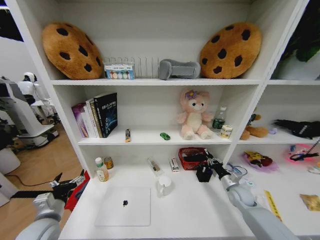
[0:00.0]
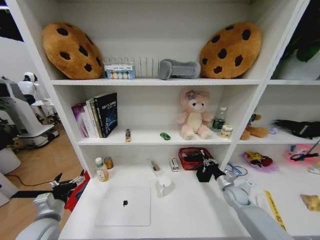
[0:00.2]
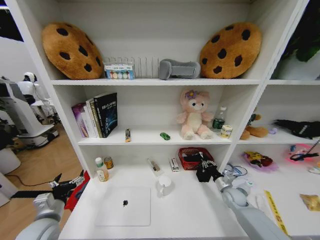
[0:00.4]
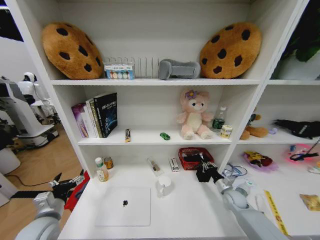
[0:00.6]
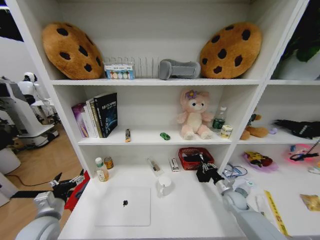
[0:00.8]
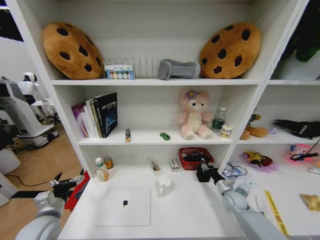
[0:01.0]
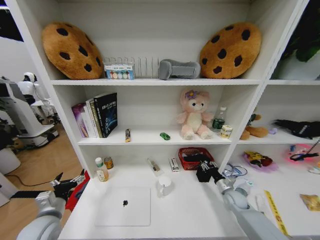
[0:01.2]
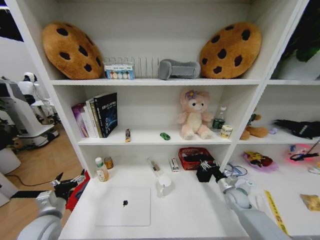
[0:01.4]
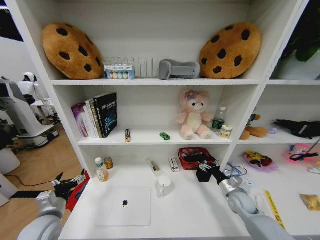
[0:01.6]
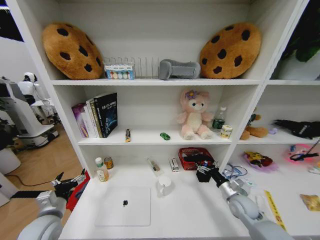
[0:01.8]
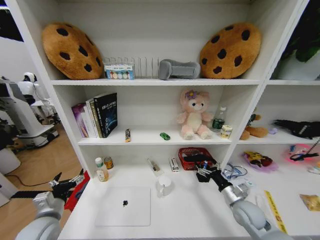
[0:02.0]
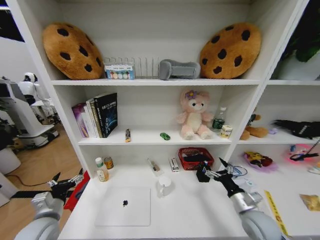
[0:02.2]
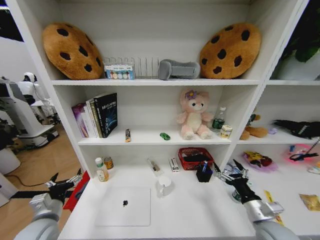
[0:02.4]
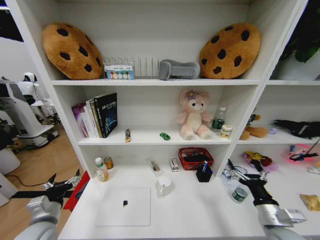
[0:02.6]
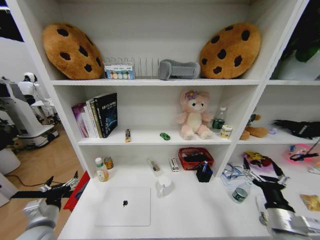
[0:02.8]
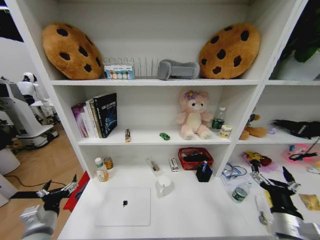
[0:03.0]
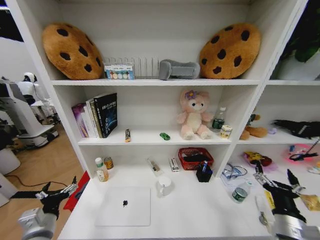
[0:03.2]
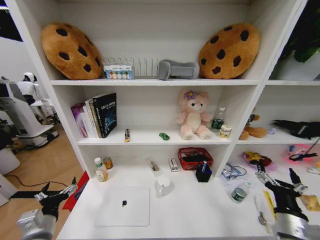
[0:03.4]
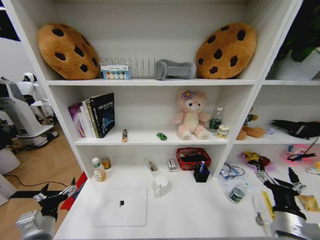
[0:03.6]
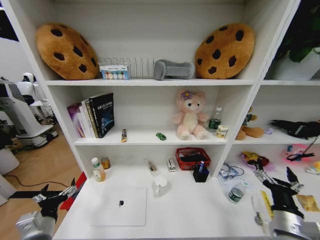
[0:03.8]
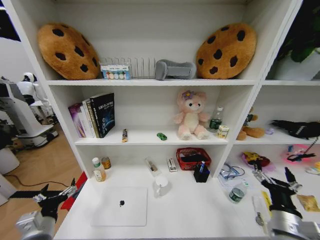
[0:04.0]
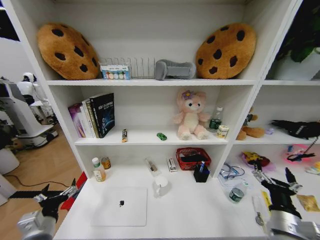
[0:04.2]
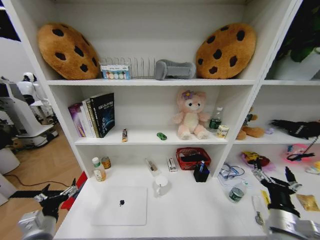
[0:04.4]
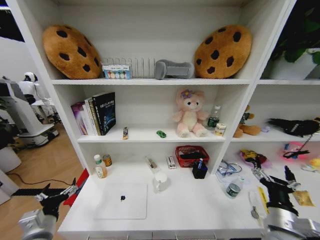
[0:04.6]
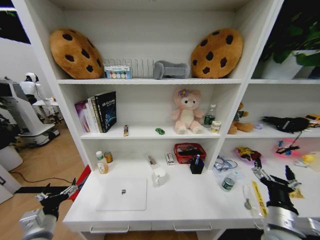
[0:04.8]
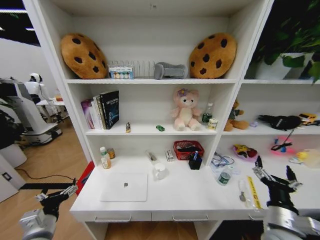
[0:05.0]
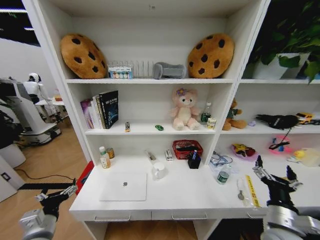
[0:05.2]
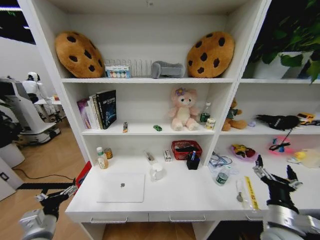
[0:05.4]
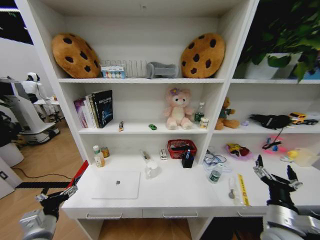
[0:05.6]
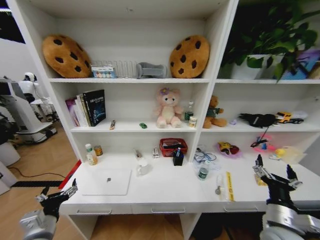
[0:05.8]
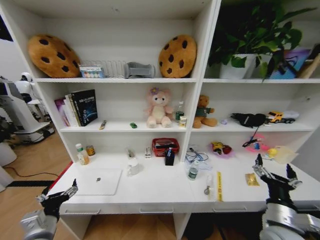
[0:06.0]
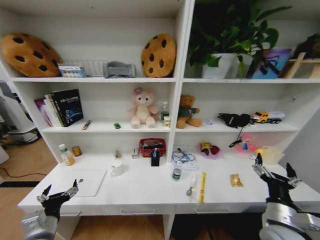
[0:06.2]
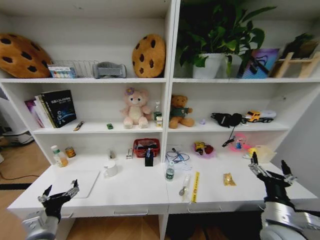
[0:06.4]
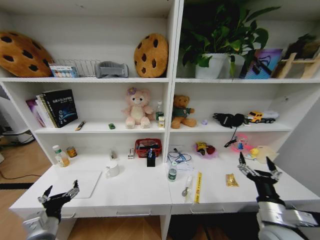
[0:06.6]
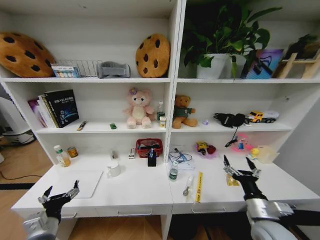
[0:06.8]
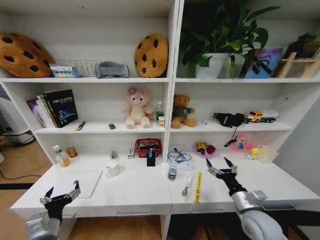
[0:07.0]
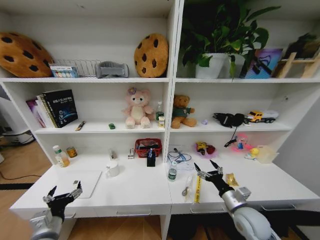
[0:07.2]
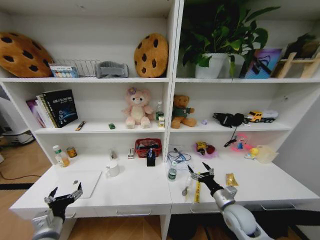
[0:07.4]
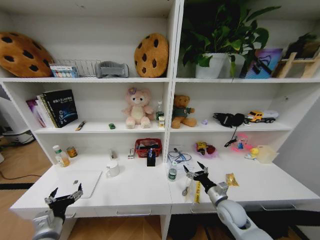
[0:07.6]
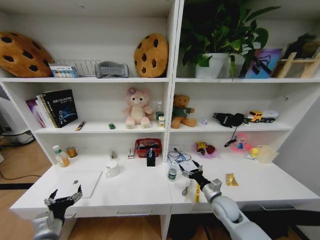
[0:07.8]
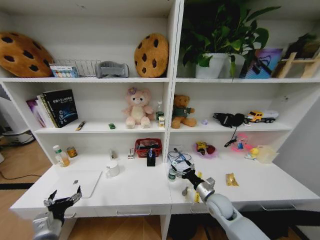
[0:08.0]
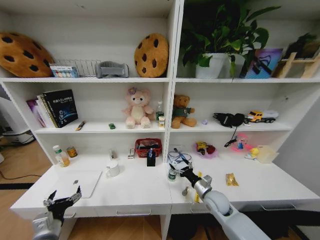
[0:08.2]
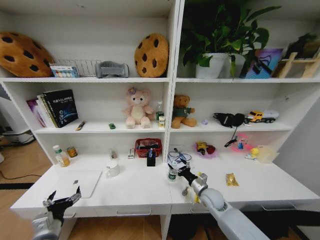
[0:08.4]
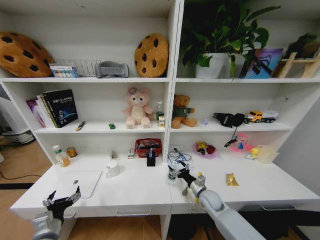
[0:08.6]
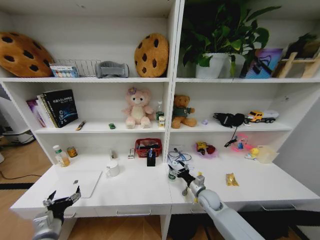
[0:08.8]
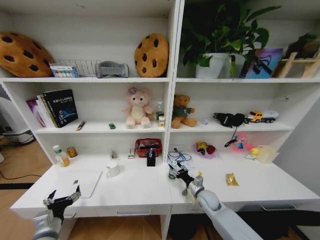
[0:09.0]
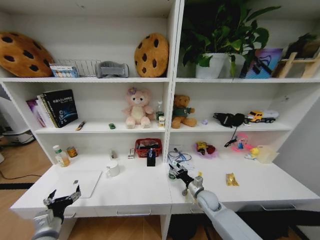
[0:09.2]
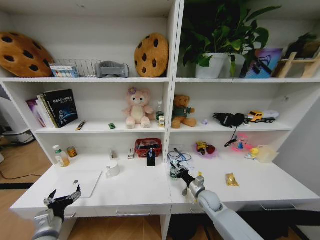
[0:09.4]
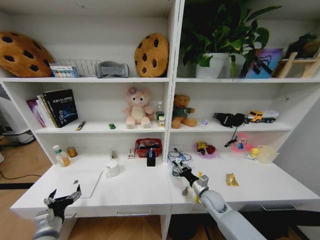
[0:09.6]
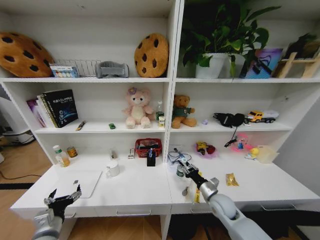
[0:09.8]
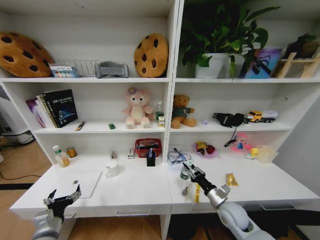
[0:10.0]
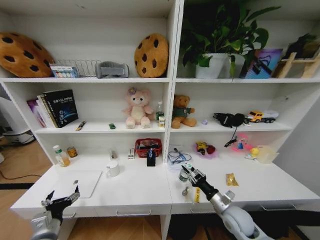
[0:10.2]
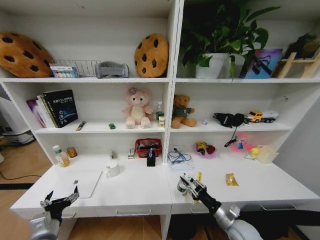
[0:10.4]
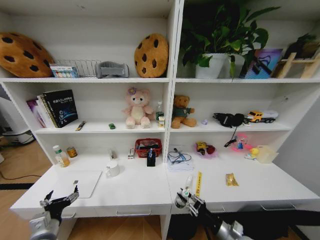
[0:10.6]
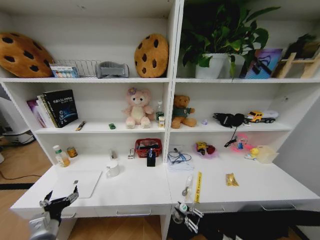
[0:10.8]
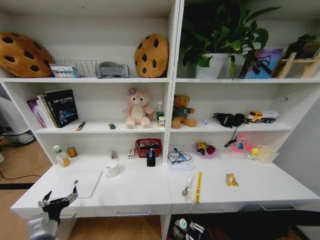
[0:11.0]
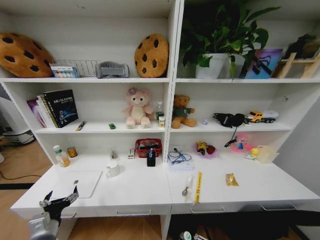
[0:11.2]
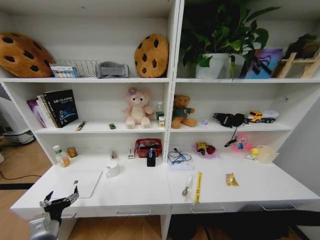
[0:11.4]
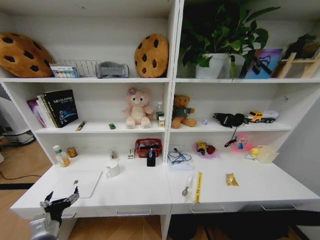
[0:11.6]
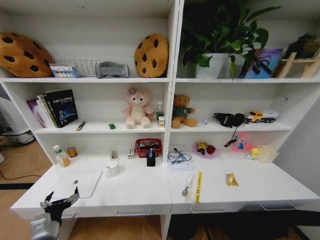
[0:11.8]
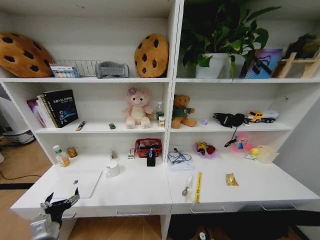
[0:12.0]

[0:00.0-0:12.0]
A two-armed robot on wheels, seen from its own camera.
Task of the whole recording: Organize the objects on the table.
0:00.0 to 0:01.6: The right gripper opens.
0:01.6 to 0:03.0: The left gripper travels backward by some 5 cm, while the right gripper travels backward and upward by about 25 cm.
0:03.0 to 0:04.4: There are only small adjustments of the grippers.
0:06.0 to 0:07.6: The right gripper moves forward, downward and to the left, some 15 cm.
0:07.6 to 0:09.0: The right gripper moves forward and downward, about 10 cm.
0:09.0 to 0:10.4: The right gripper goes roughly 15 cm backward and to the right, and closes up.
0:10.4 to 0:12.0: The right gripper goes roughly 30 cm downward, backward and to the right.

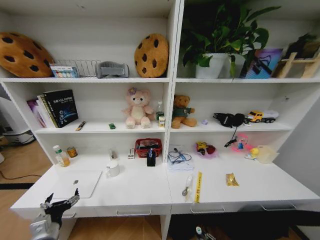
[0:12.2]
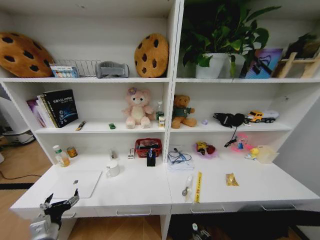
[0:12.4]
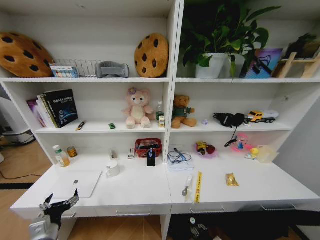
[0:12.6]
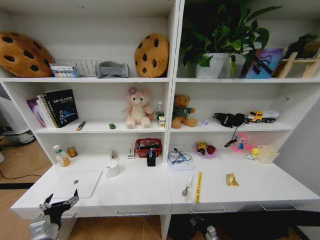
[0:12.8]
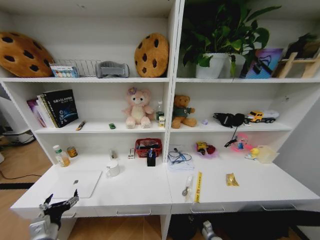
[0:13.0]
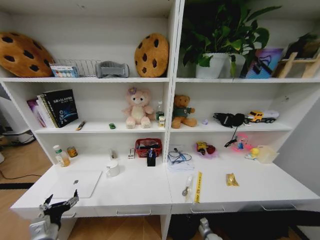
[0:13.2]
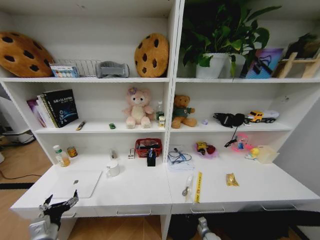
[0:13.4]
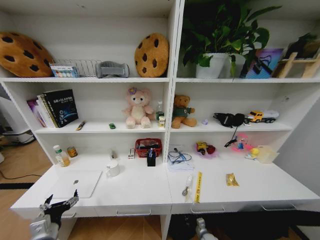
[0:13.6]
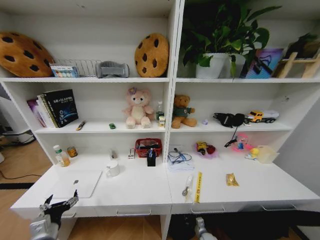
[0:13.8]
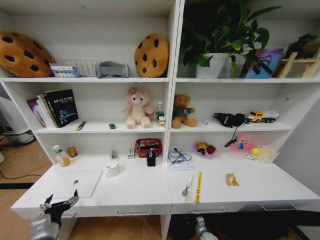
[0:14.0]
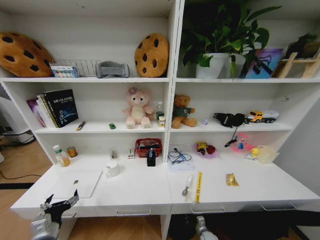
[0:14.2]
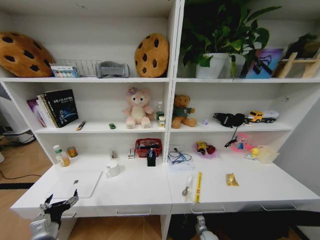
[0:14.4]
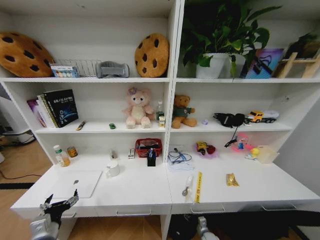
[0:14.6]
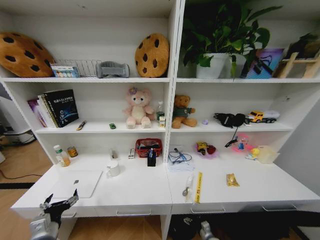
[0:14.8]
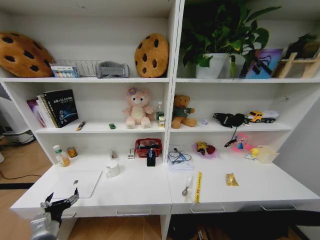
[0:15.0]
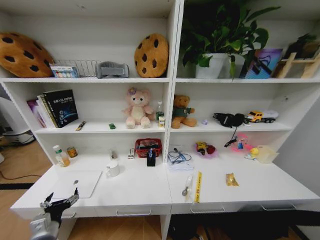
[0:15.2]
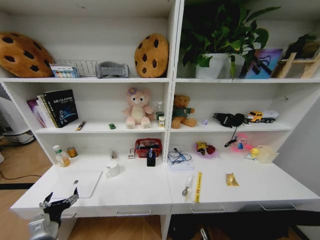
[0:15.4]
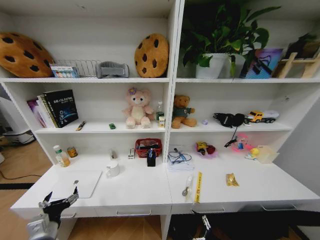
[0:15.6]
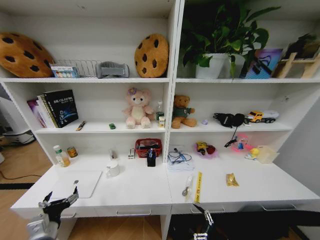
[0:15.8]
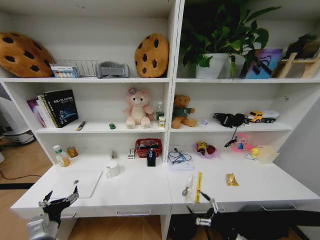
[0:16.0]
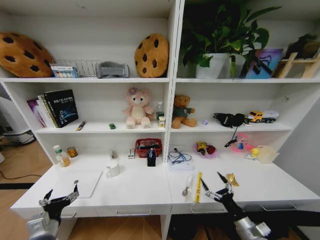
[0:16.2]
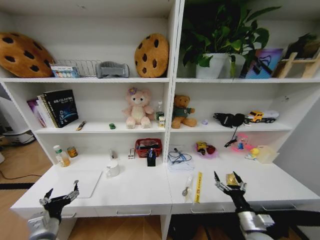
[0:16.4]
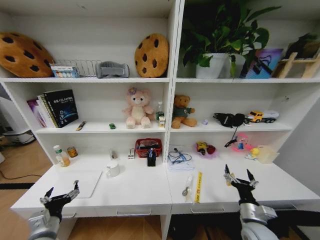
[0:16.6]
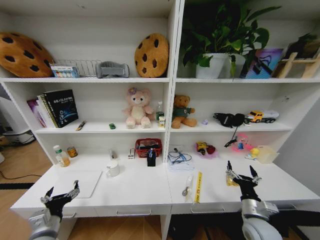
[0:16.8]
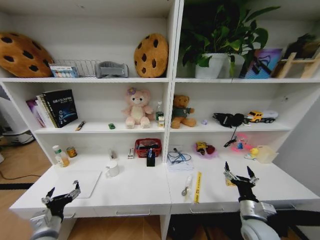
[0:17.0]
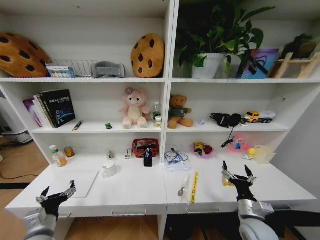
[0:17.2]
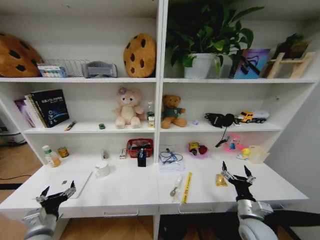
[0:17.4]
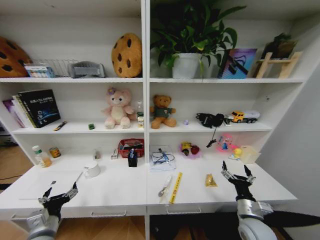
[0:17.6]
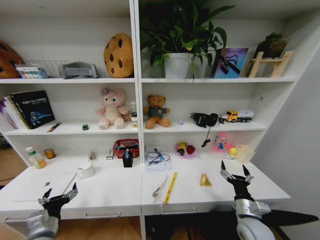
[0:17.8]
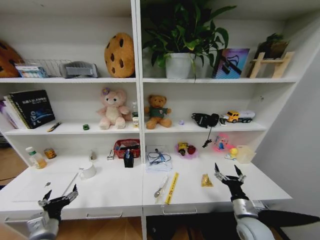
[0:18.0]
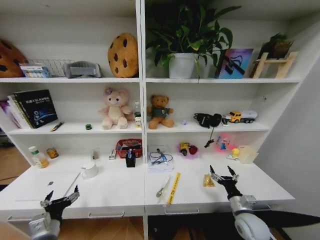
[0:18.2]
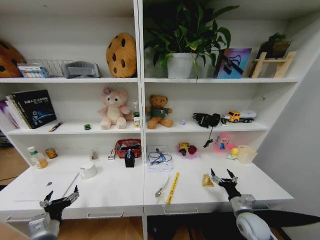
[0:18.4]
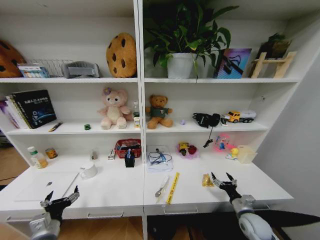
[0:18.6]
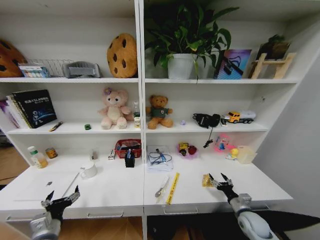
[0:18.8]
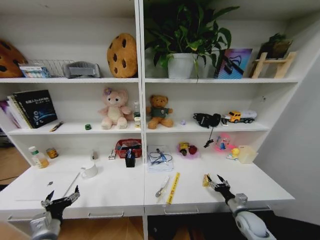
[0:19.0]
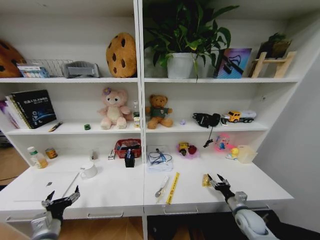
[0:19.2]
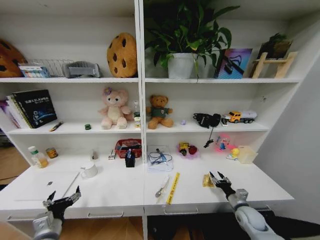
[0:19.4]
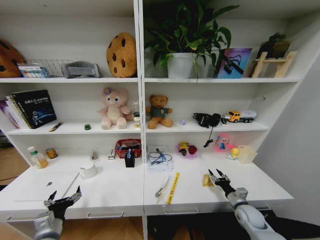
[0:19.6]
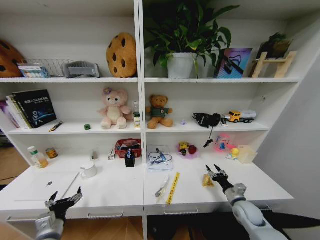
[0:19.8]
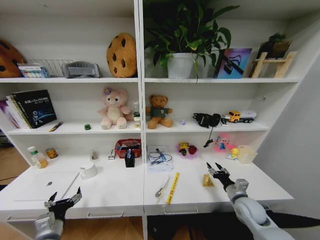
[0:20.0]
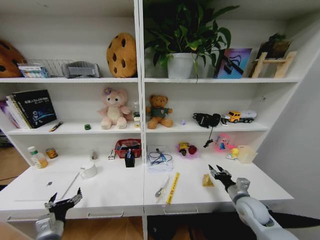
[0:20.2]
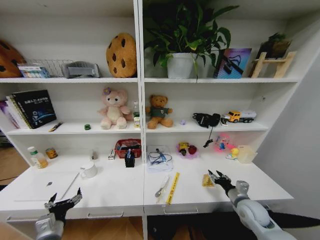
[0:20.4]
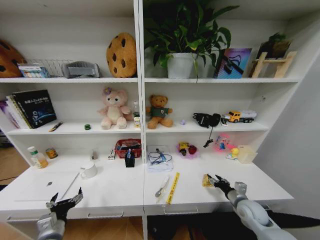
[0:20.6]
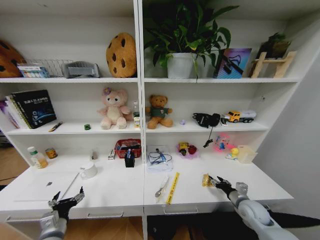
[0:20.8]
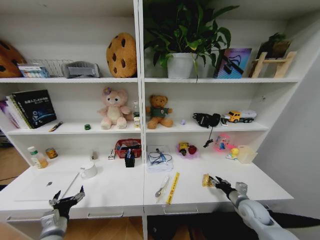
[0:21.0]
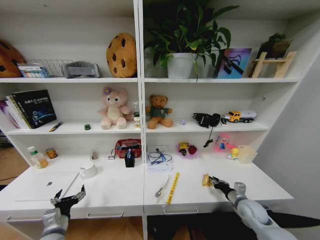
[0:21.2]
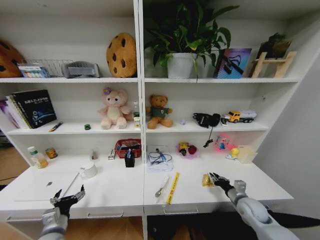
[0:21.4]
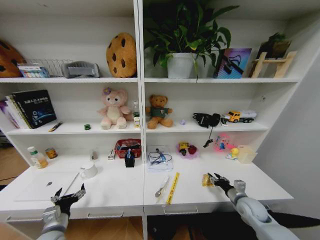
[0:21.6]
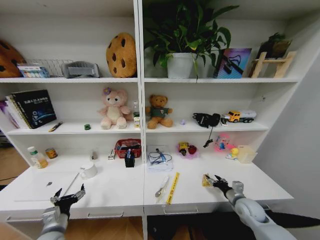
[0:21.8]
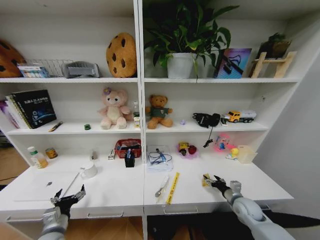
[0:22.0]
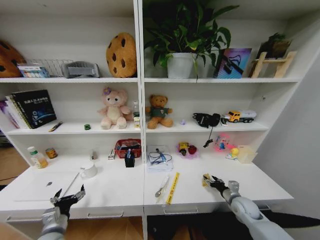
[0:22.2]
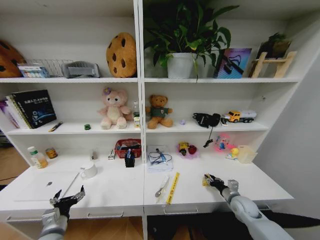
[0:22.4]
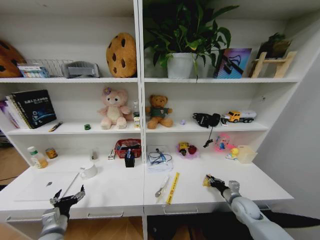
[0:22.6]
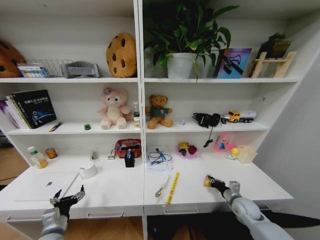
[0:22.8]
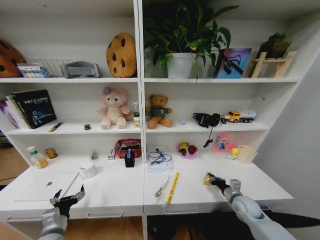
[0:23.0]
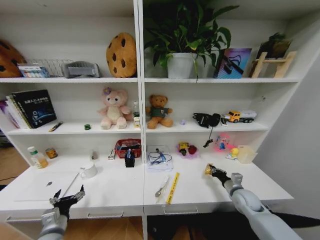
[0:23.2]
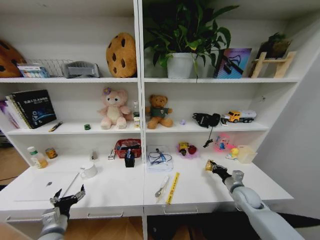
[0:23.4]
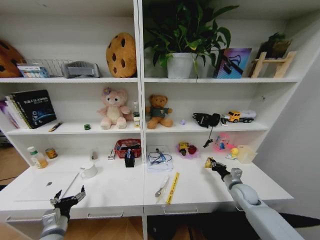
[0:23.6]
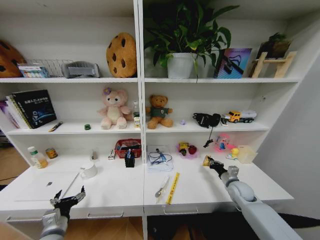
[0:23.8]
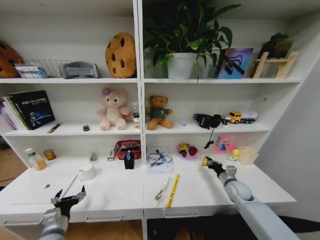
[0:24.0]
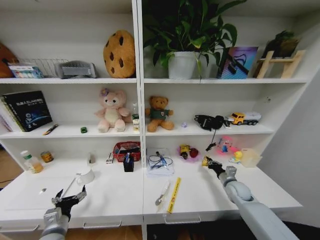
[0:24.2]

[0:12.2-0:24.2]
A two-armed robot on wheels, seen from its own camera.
Task of the whole recording: Organize the objects on the table.
0:15.2 to 0:16.6: The right gripper travels upward by approximately 30 cm.
0:18.2 to 0:19.8: The right gripper heads forward and to the right, covering approximately 10 cm, and closes its fingers.
0:21.2 to 0:22.6: The right gripper opens and closes again.
0:22.6 to 0:24.2: The right gripper goes about 5 cm forward.
